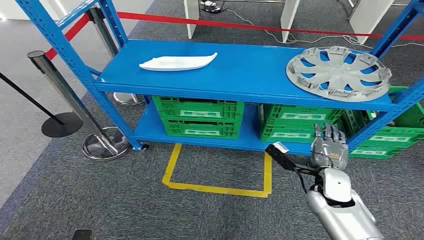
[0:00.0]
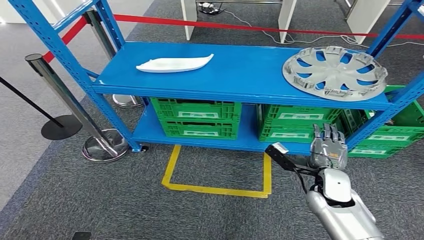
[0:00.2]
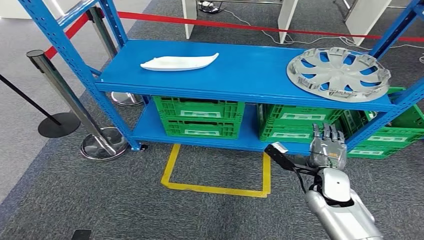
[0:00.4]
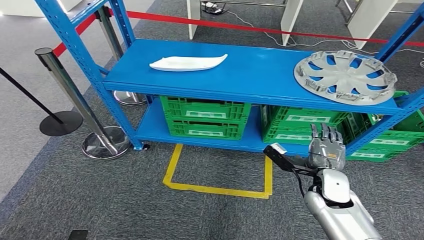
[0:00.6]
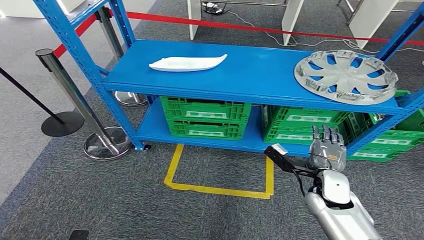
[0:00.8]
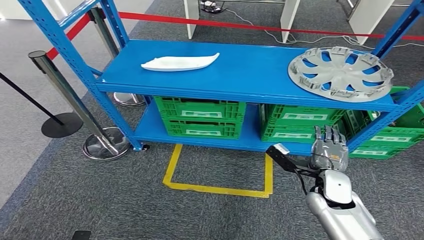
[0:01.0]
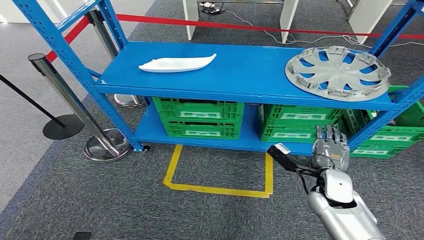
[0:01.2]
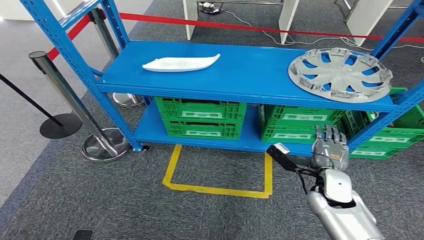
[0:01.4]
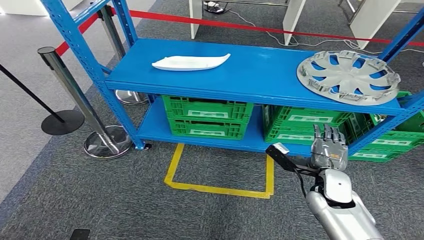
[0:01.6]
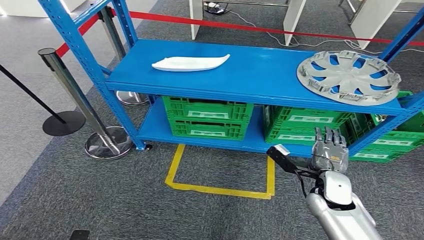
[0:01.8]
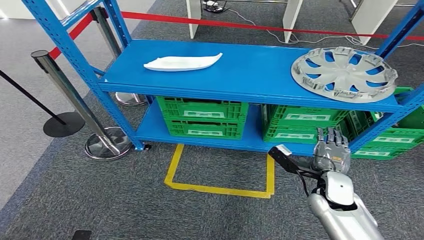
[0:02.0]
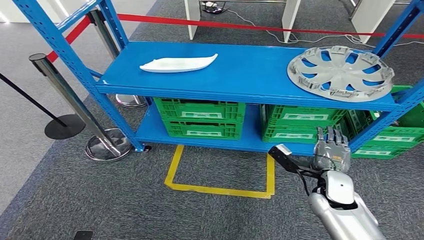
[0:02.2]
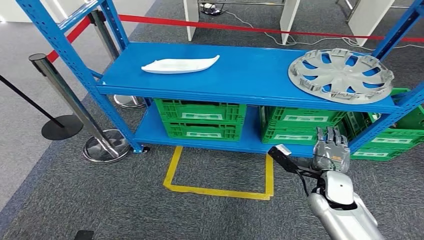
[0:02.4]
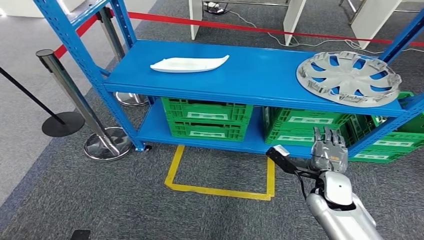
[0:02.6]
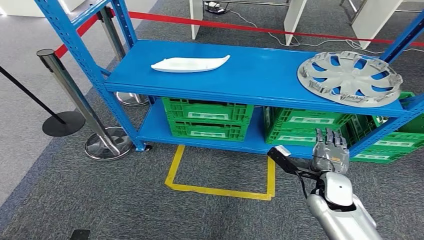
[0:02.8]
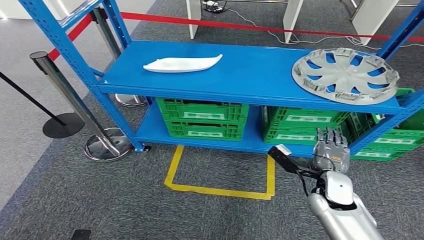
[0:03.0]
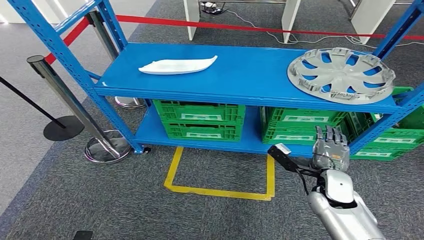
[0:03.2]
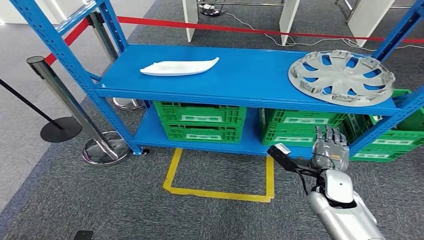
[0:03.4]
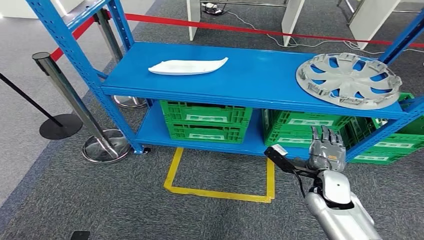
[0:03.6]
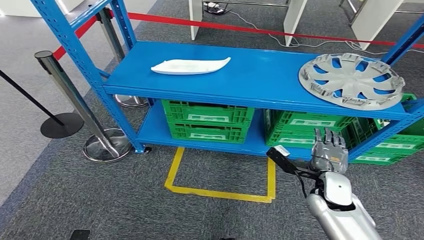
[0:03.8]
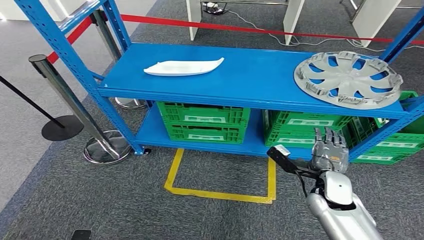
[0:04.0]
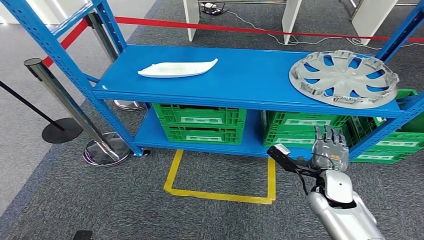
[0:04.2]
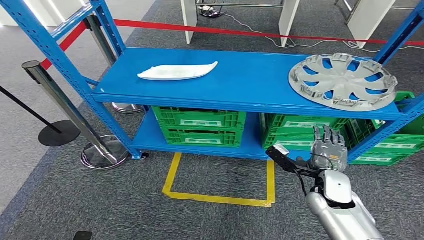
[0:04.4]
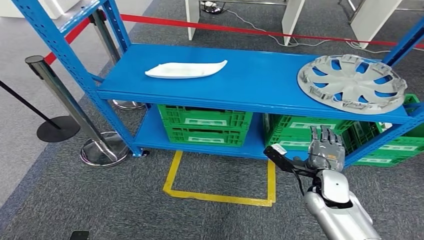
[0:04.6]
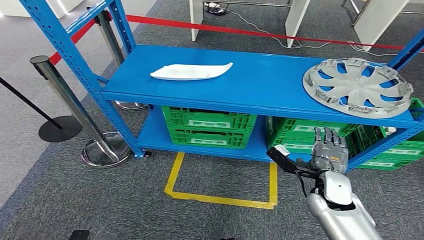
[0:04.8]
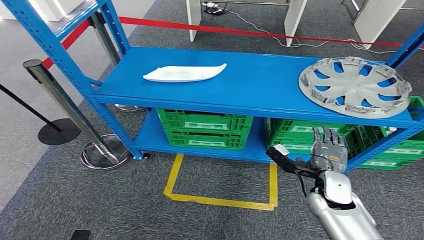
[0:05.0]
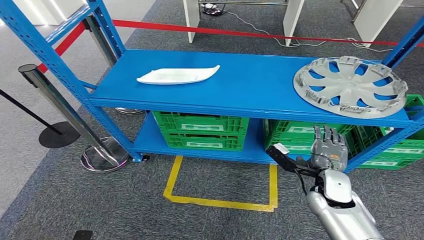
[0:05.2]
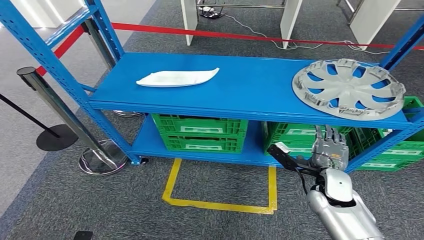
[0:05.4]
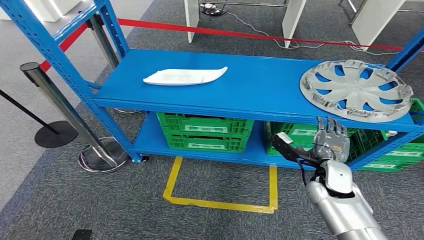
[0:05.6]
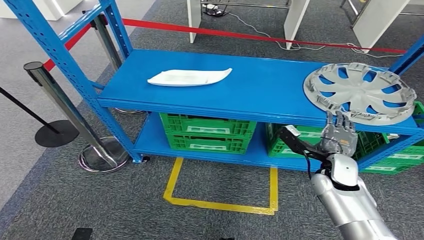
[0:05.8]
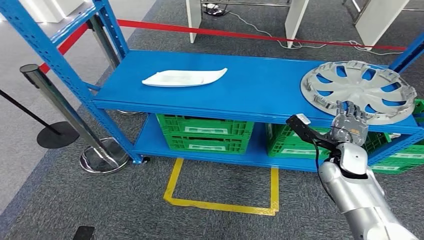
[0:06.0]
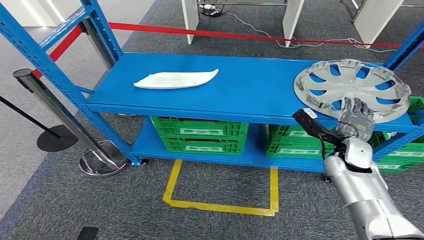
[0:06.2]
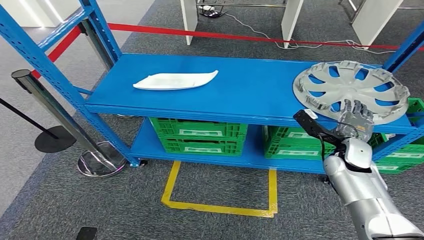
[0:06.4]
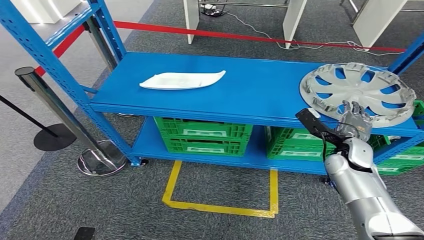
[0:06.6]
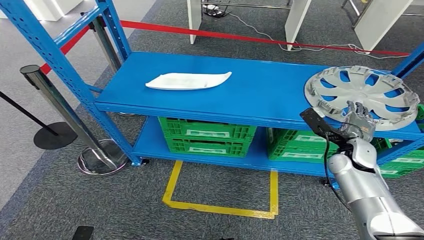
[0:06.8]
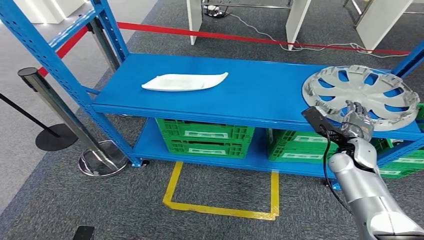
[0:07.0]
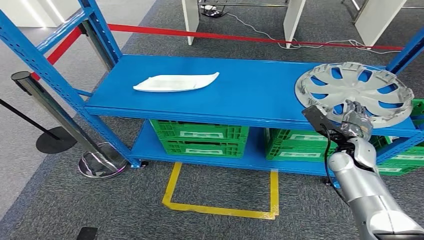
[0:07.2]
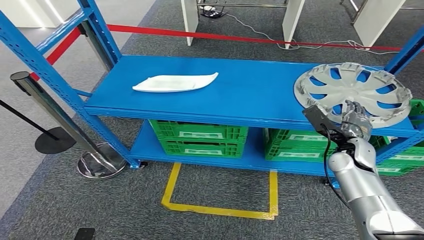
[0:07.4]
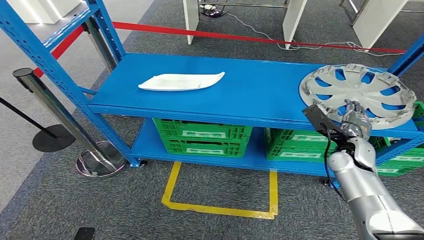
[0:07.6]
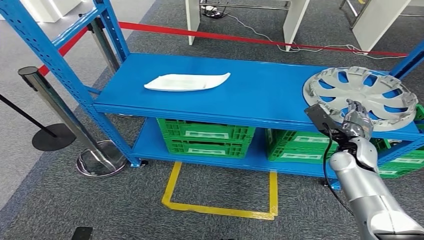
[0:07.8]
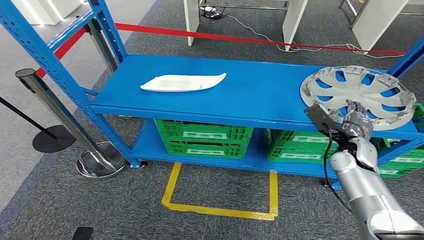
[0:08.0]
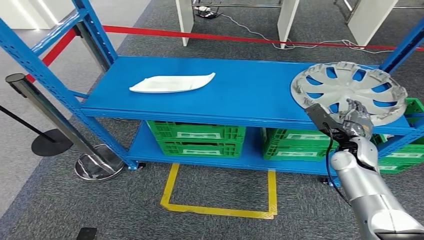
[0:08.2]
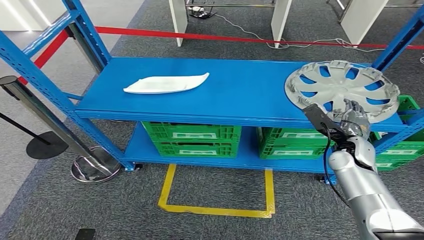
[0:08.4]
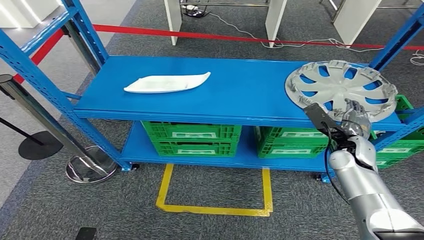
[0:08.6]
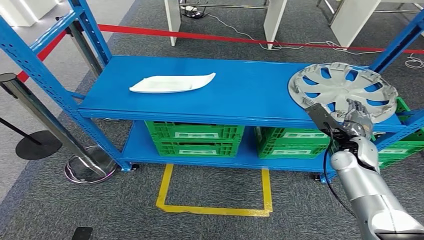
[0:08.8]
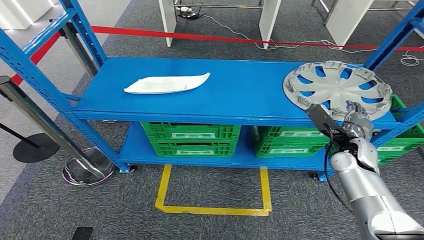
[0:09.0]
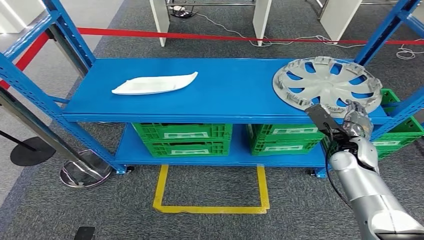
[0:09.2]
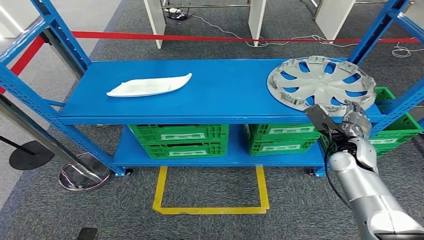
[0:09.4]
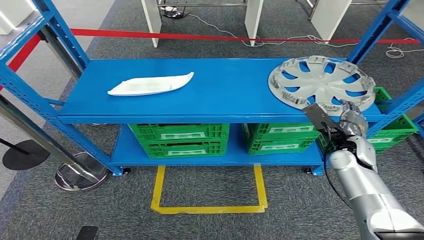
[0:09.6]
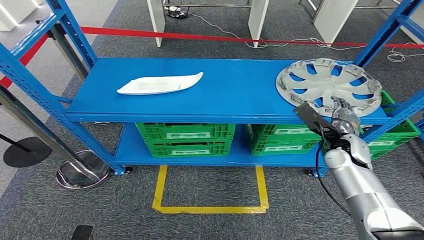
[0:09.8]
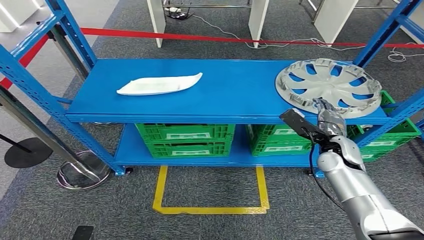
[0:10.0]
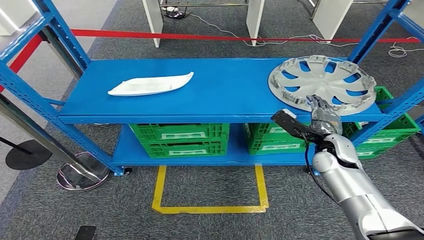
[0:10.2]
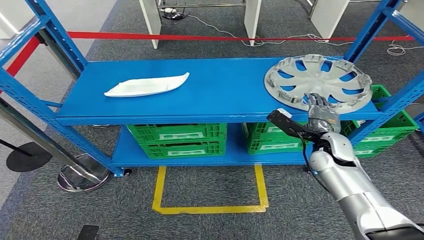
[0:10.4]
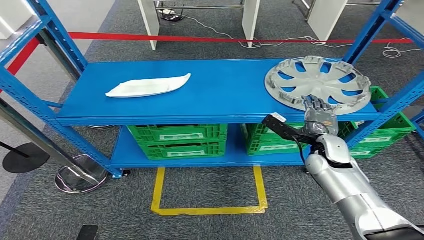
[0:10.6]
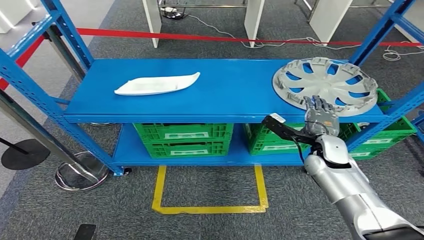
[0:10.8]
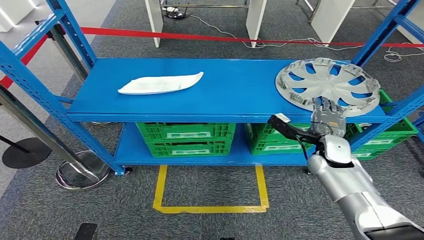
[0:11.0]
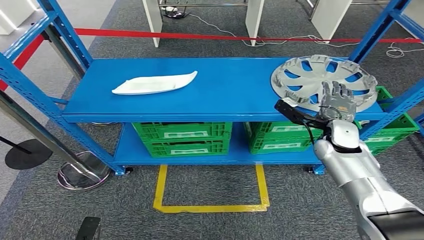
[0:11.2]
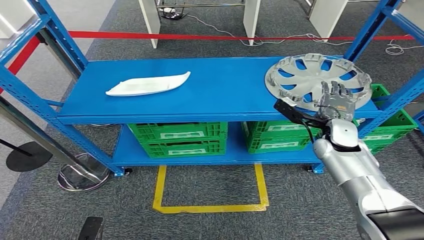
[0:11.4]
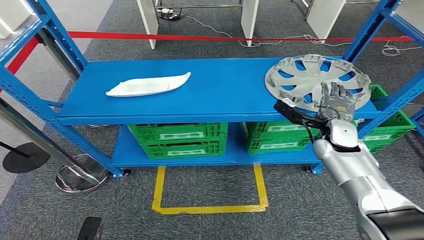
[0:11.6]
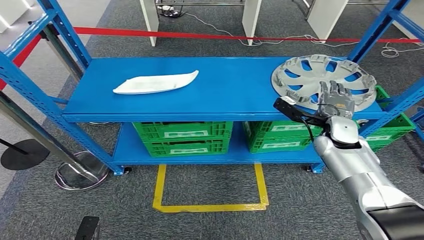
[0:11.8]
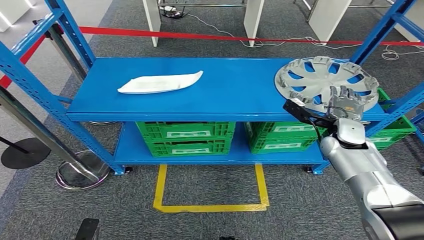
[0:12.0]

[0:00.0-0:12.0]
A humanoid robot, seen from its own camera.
0:01.6 to 0:03.0: Both hands stay put.

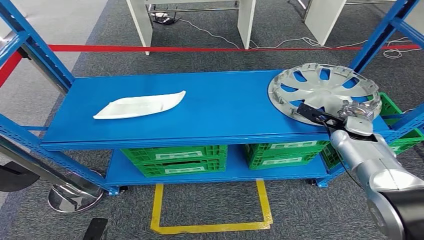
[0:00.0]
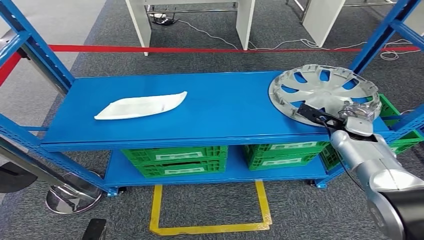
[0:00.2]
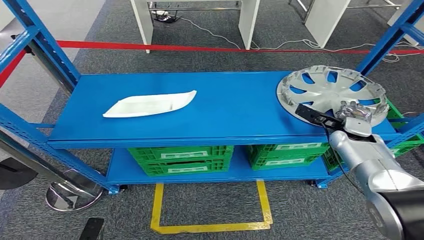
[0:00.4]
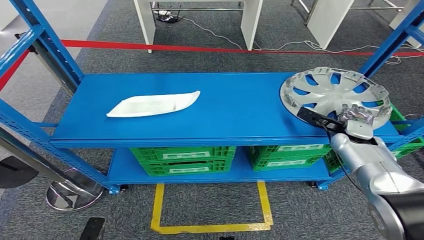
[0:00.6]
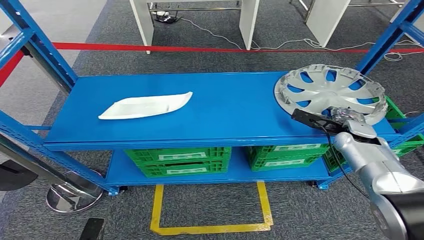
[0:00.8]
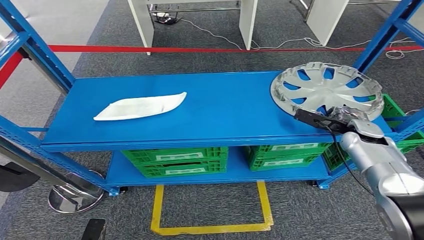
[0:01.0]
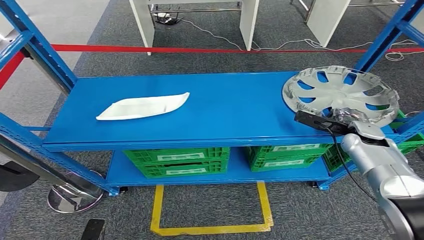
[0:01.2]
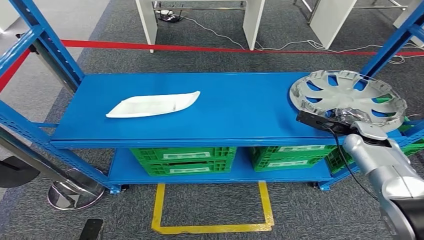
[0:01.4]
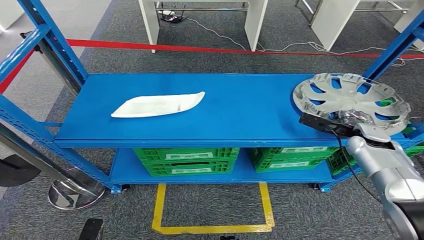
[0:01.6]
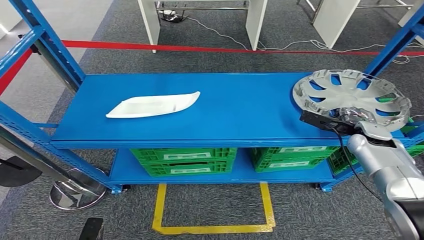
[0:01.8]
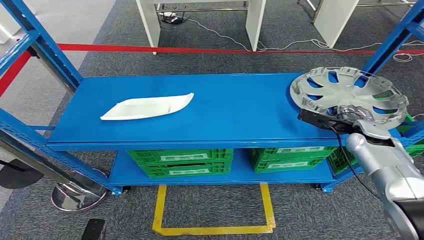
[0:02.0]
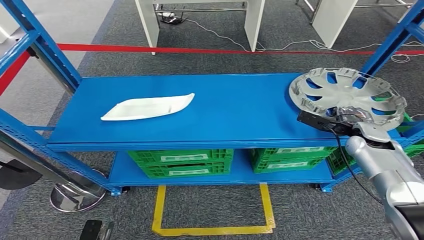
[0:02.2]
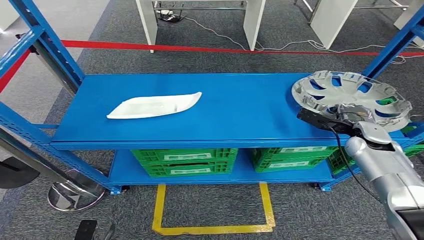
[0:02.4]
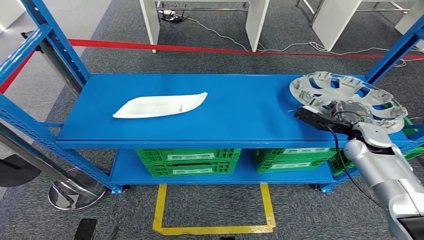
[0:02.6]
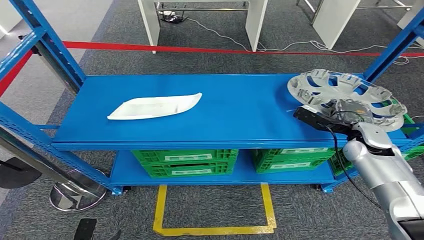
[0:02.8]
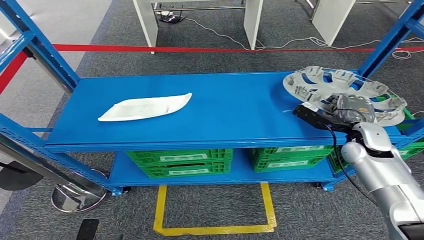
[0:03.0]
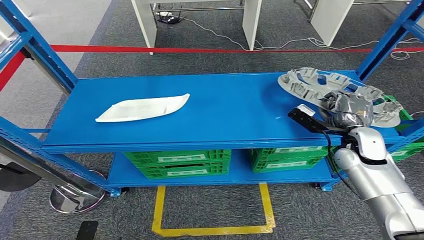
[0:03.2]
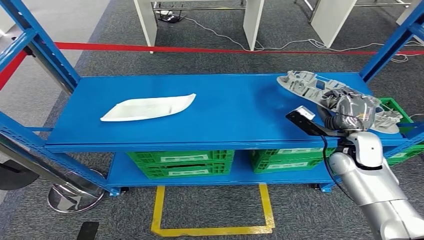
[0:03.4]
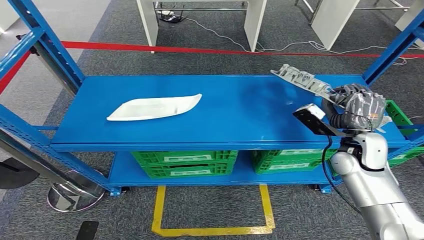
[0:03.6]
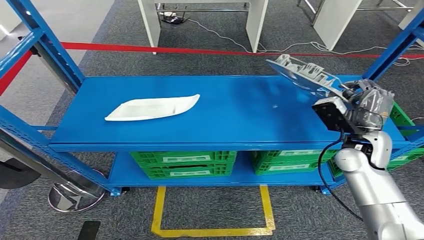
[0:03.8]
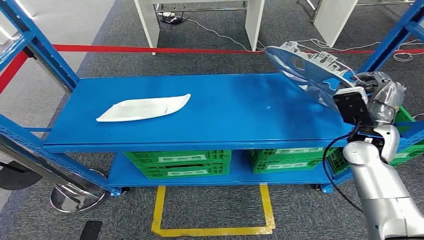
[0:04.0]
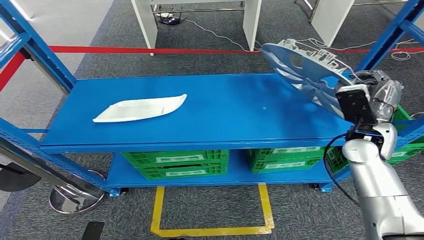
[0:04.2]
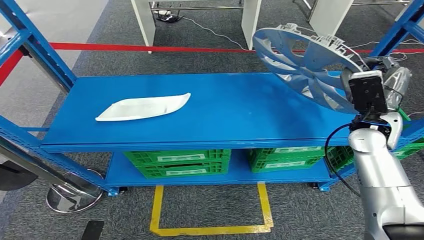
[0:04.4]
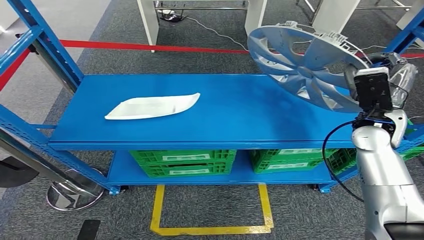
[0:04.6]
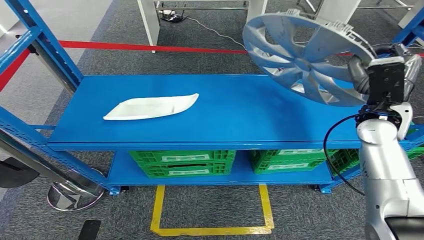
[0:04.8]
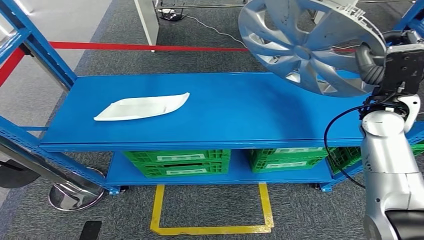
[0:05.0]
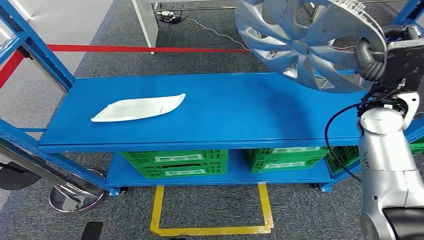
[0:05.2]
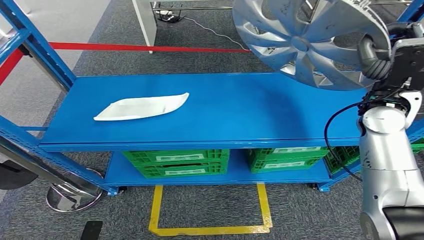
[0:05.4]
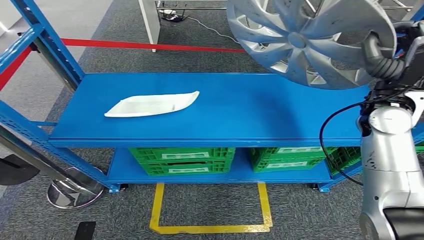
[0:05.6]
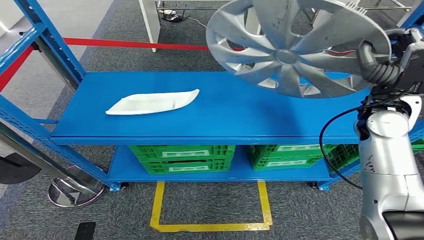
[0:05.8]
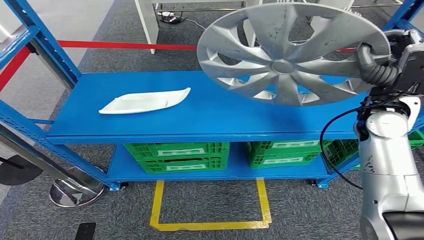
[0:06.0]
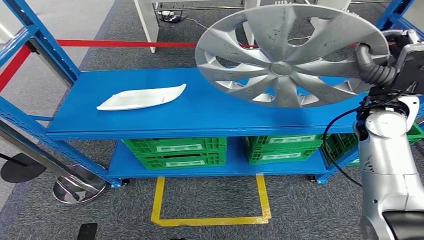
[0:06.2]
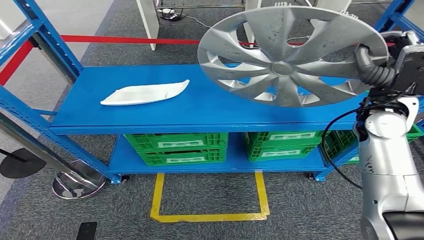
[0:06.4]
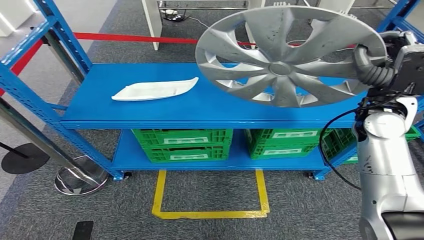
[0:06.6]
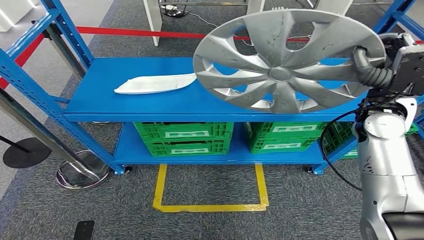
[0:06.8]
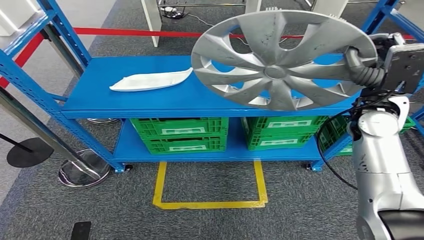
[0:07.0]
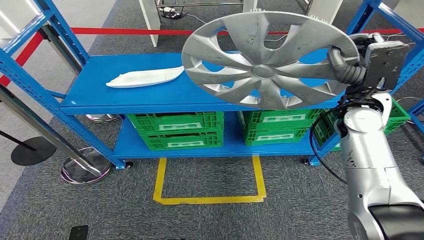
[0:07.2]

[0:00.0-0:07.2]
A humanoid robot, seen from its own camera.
Step, 0:00.0 to 0:06.4: Pick up the small component from the shelf.
